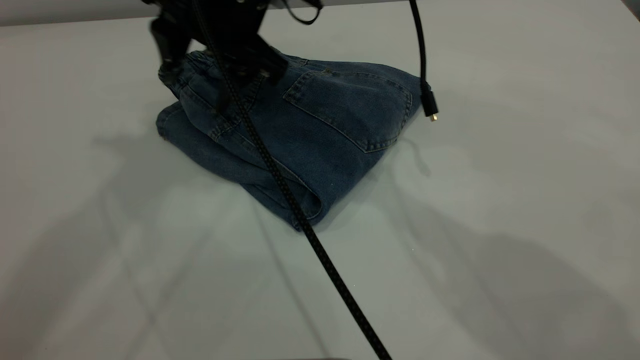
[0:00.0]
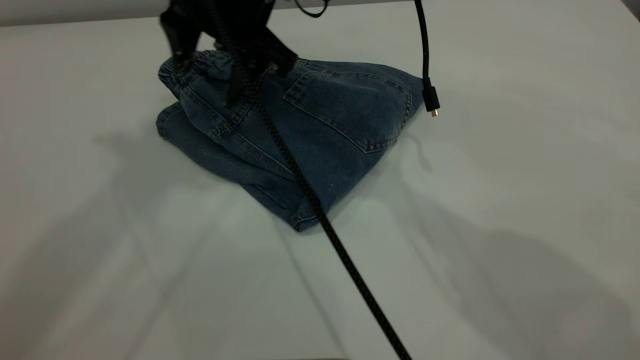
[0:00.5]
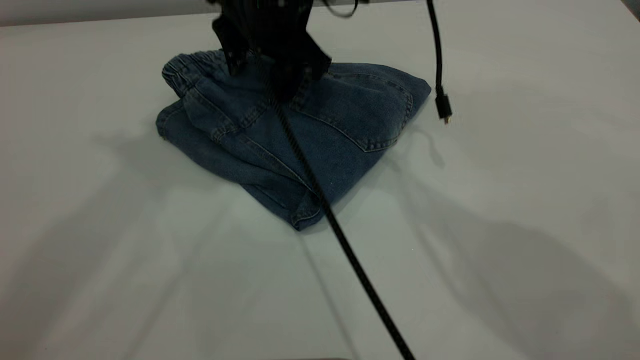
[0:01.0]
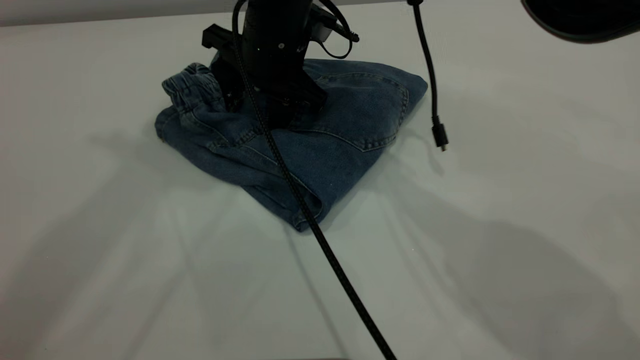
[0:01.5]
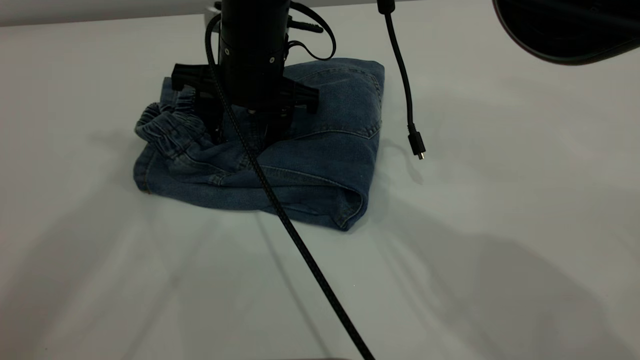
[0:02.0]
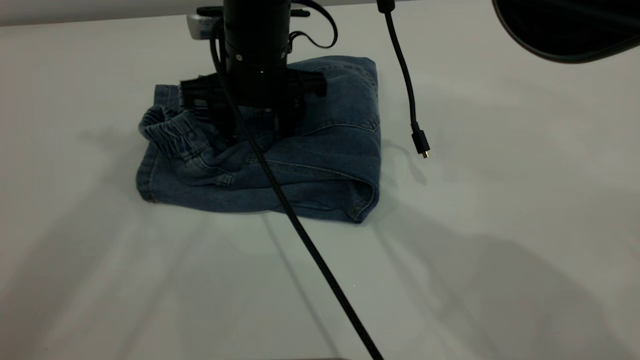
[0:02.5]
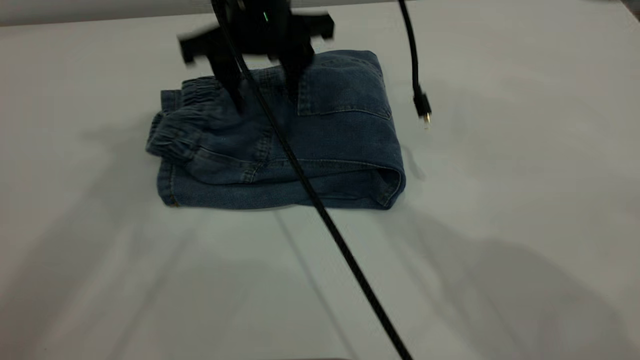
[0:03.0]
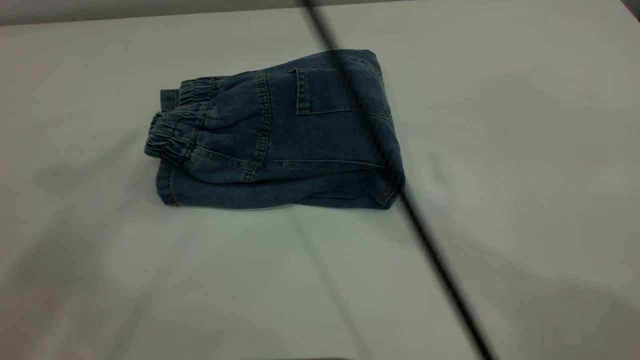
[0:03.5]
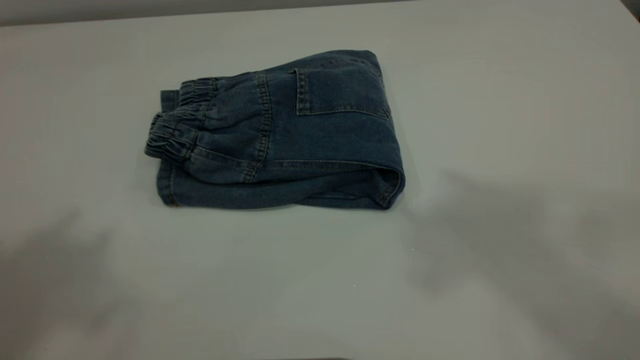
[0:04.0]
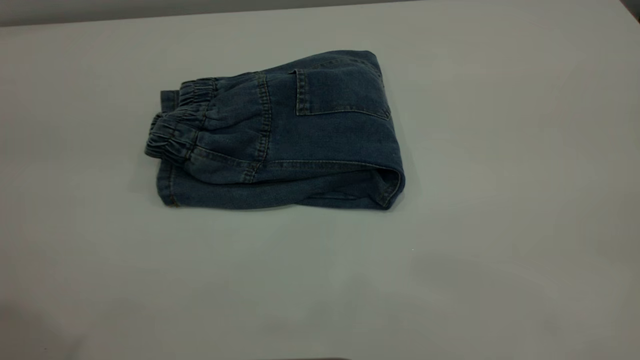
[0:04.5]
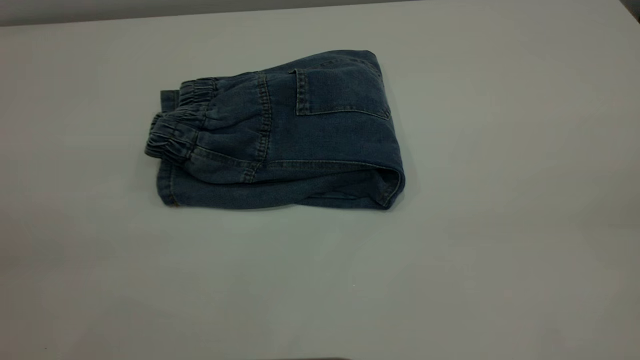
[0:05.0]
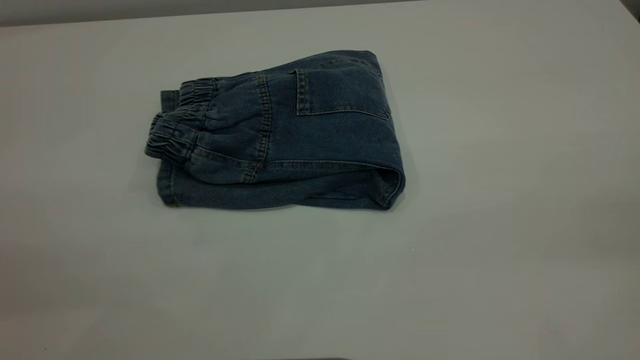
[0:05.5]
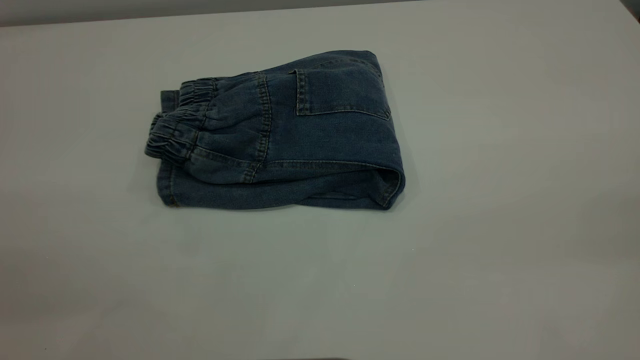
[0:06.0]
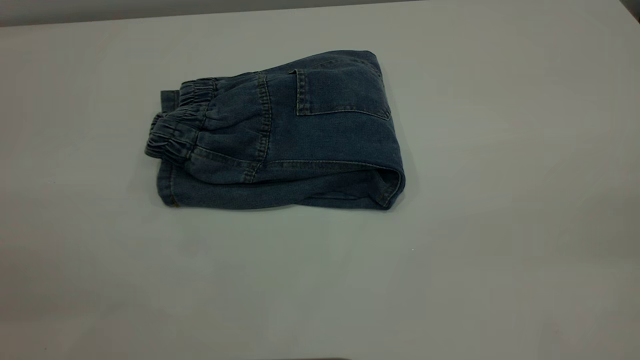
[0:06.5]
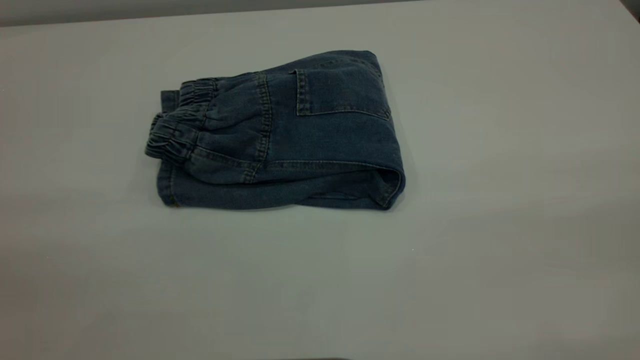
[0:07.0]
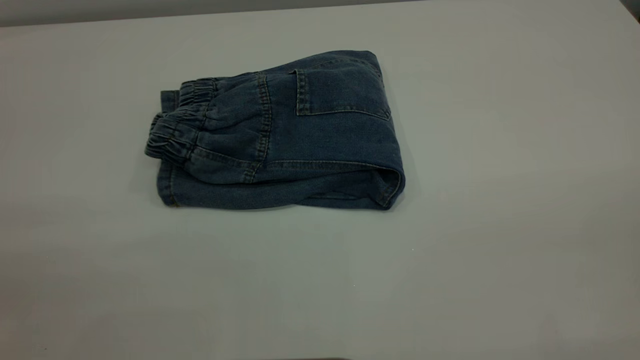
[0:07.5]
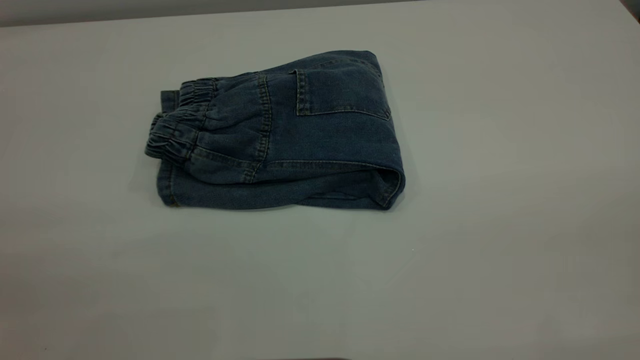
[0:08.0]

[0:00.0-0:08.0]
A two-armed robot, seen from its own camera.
0:00.0 to 0:02.0: The right gripper is displaced downward by approximately 5 cm.
0:02.0 to 0:04.0: The left gripper is displaced backward and upward by some 15 cm; the right gripper is displaced upward, to the right and backward by roughly 50 cm.
